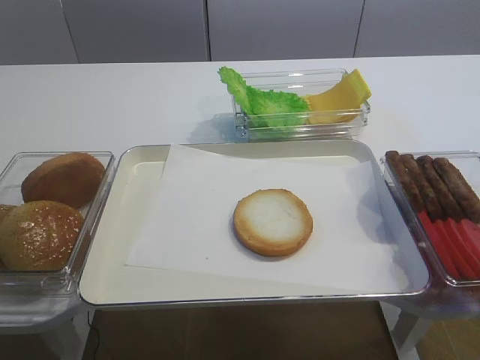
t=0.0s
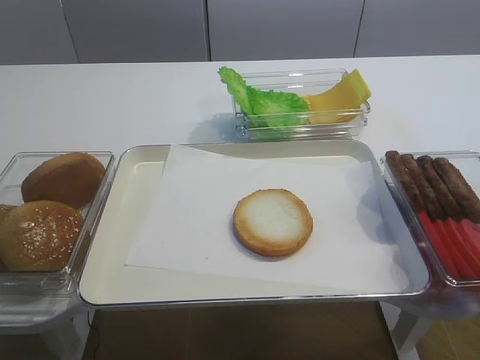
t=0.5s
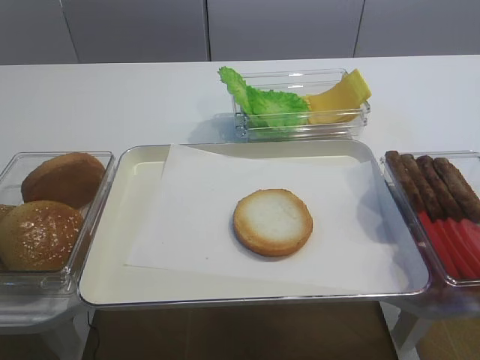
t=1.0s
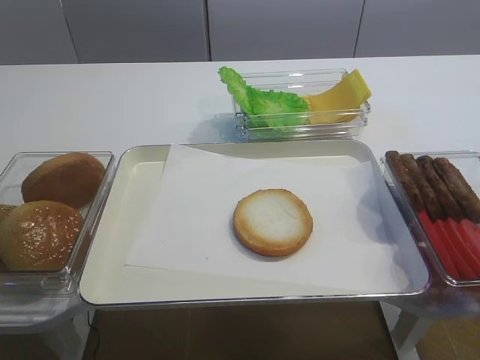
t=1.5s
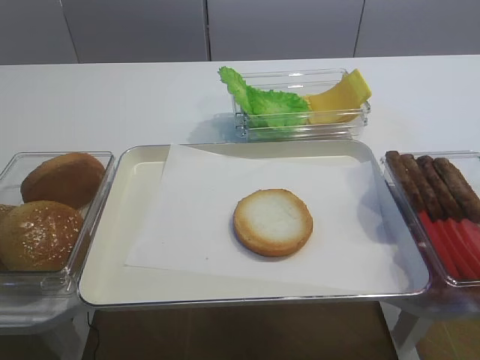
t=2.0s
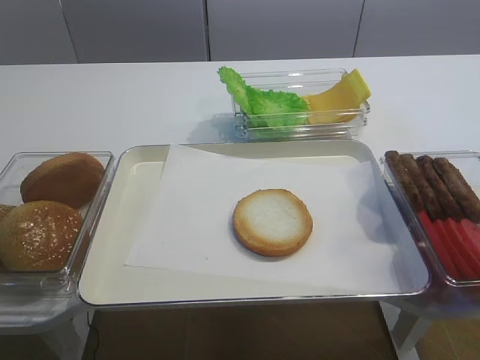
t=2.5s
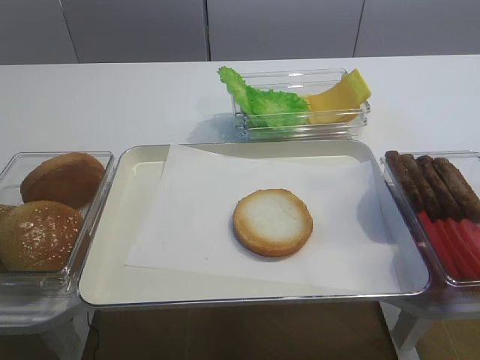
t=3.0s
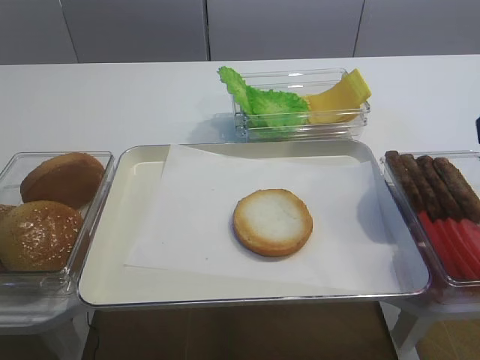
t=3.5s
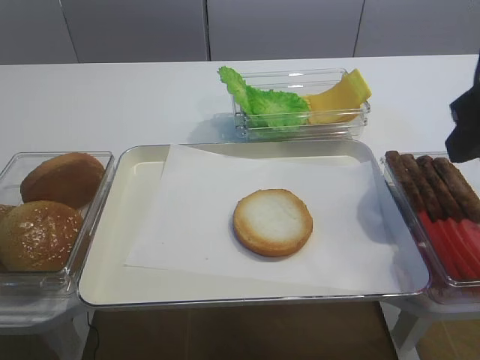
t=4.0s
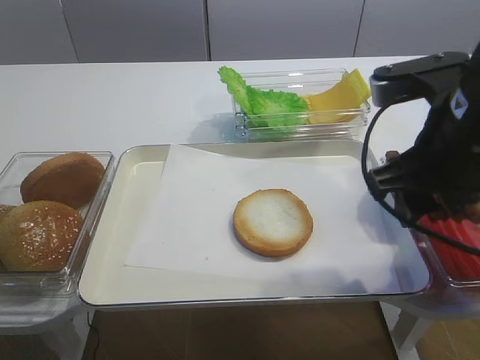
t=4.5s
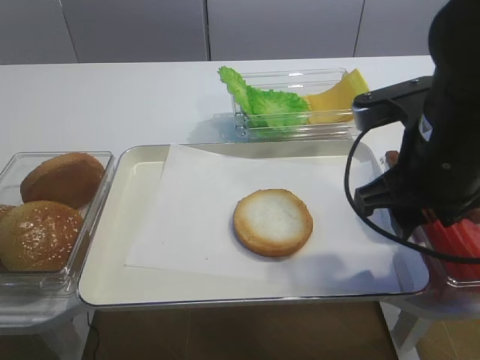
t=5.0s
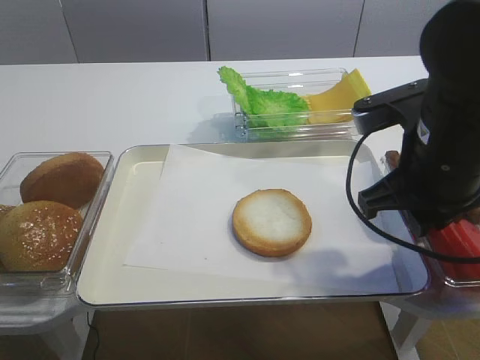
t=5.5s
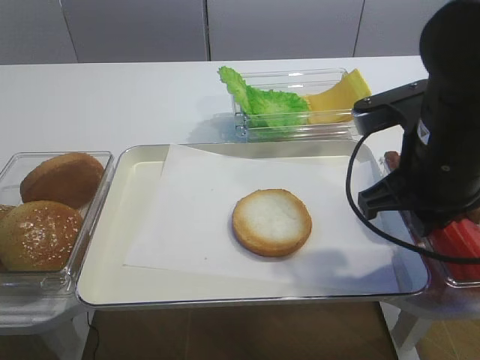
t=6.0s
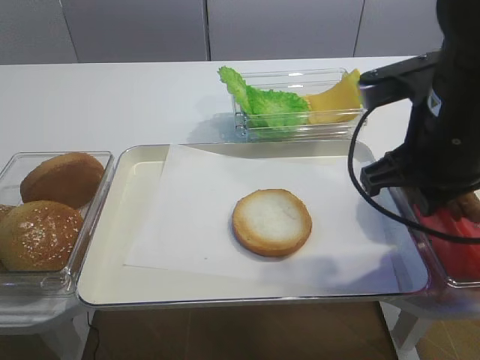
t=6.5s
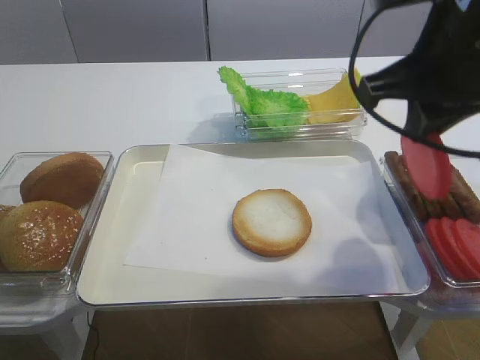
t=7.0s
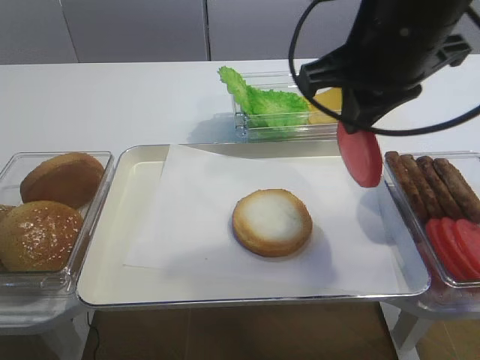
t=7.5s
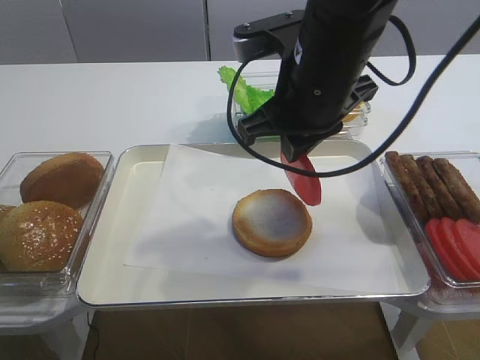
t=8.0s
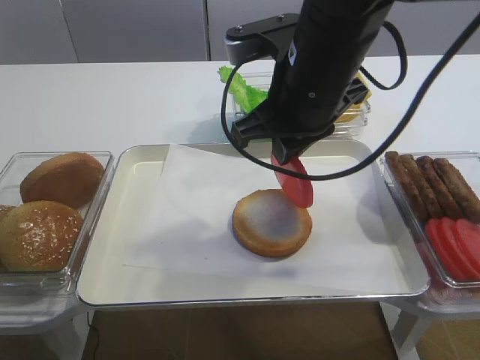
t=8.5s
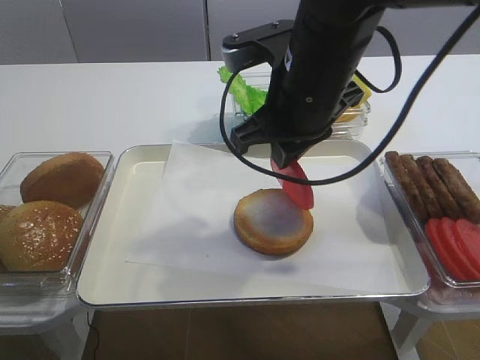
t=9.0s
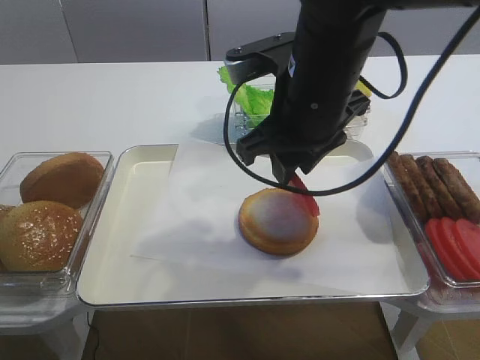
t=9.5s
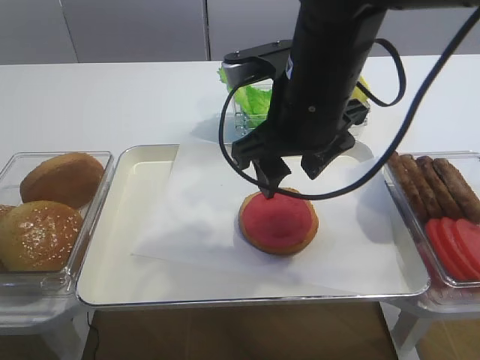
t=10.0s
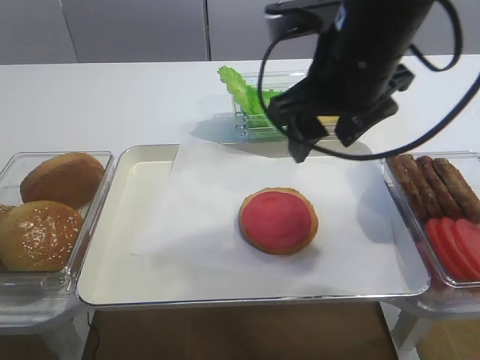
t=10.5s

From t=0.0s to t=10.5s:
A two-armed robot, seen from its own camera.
Step, from t=0.0s to t=6.5s: Pick up the tomato slice with the right gripper.
Step, from t=7.0s to t=10.0s: Place the tomato slice on the bread slice with the right gripper.
From t=2.0s to t=4.0s: The right gripper is displaced forward by some 20 cm.
From t=4.0s to t=6.5s: The right gripper is displaced downward and to the left by about 10 cm, and closes up.
From t=6.5s to t=8.5s: The right gripper shifts approximately 10 cm to the left and forward.
From t=8.5s to t=10.5s: The right gripper opens up.

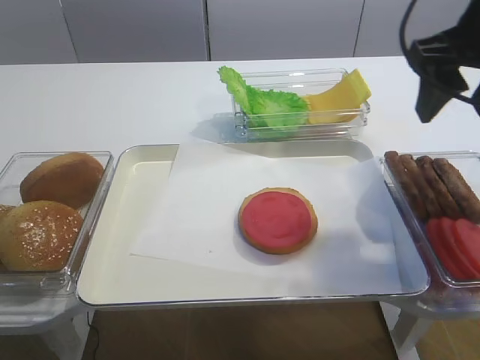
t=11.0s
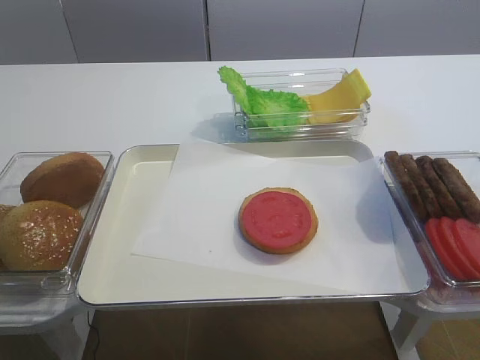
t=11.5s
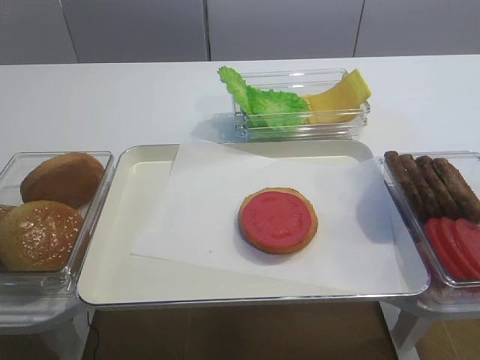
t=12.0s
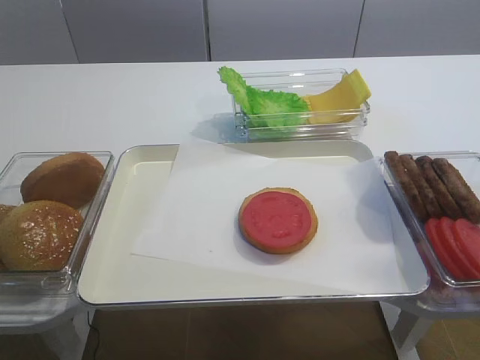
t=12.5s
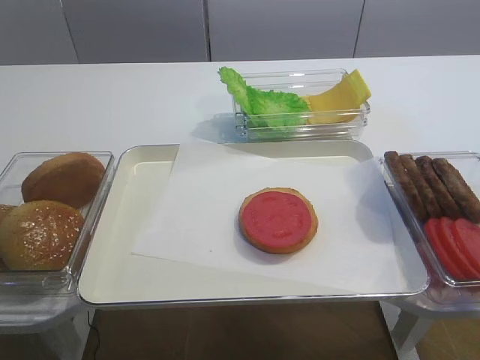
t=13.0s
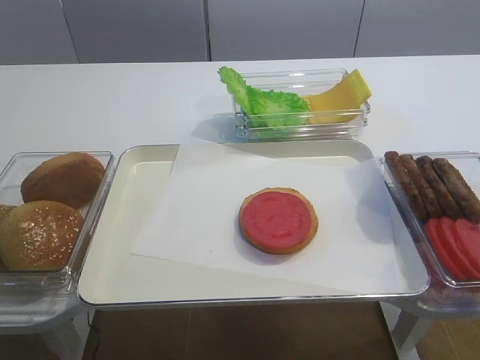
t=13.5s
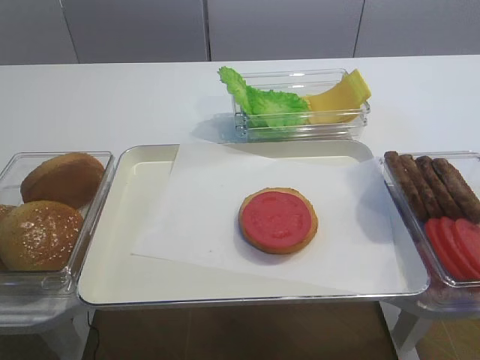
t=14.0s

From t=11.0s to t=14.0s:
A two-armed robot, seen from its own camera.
From t=11.0s to t=12.5s: The right gripper goes approximately 30 cm backward.

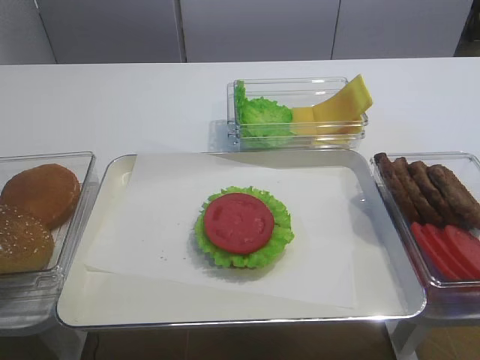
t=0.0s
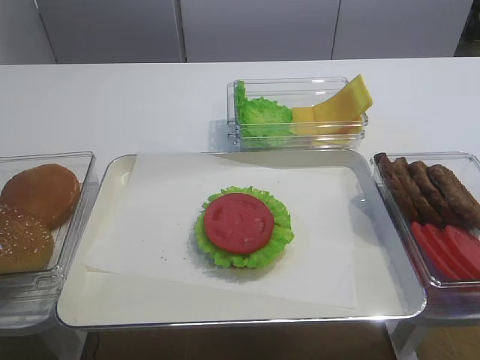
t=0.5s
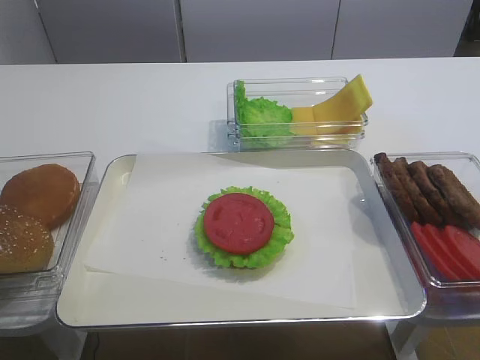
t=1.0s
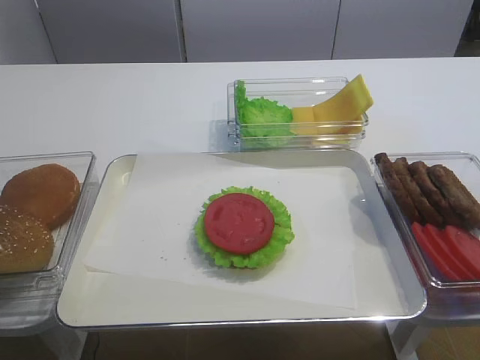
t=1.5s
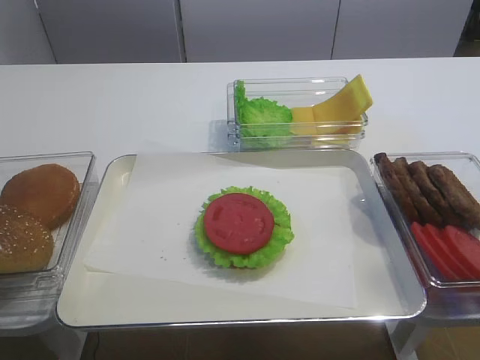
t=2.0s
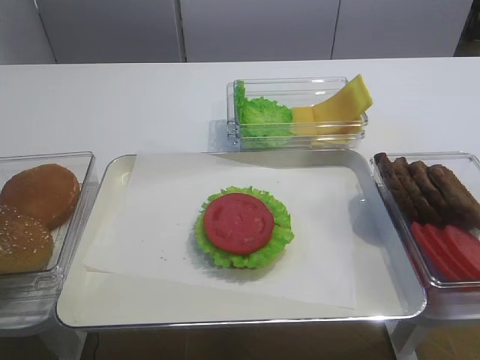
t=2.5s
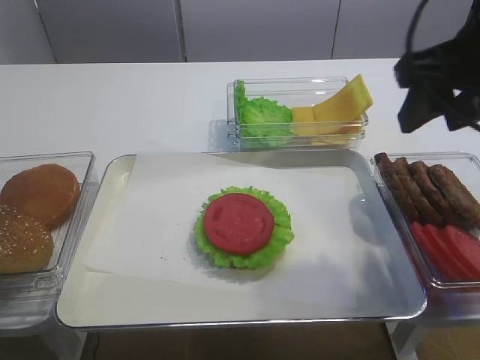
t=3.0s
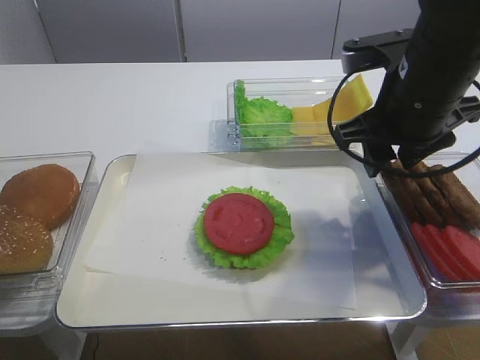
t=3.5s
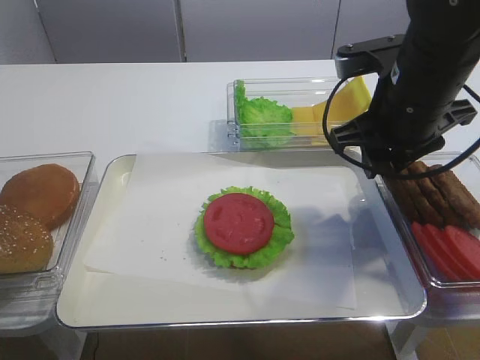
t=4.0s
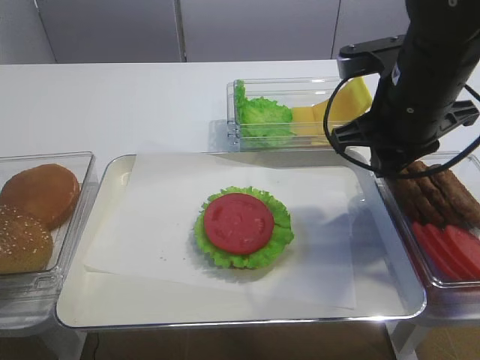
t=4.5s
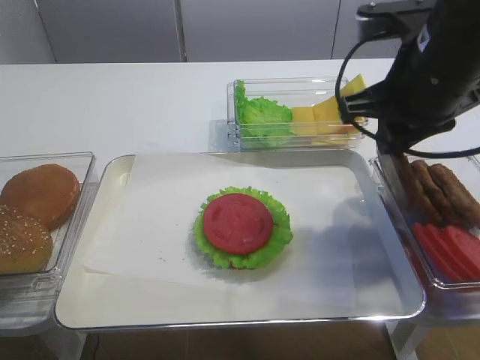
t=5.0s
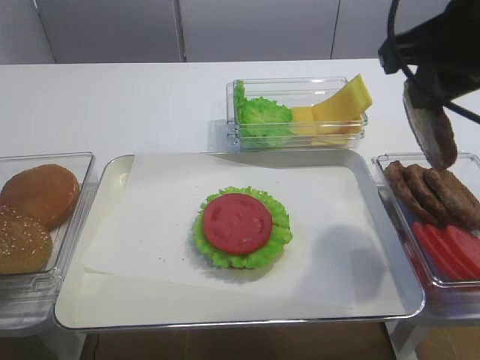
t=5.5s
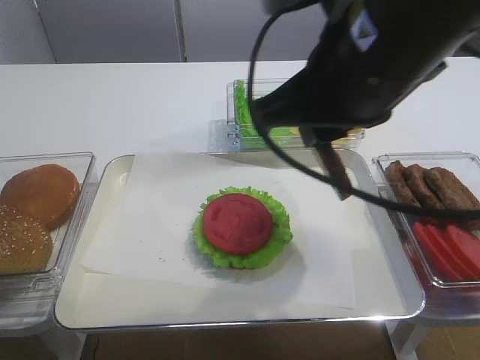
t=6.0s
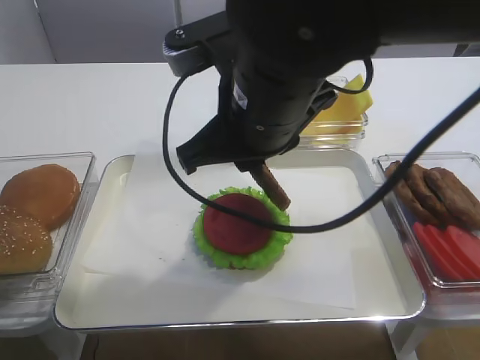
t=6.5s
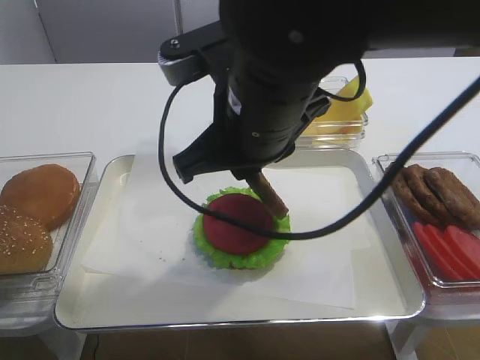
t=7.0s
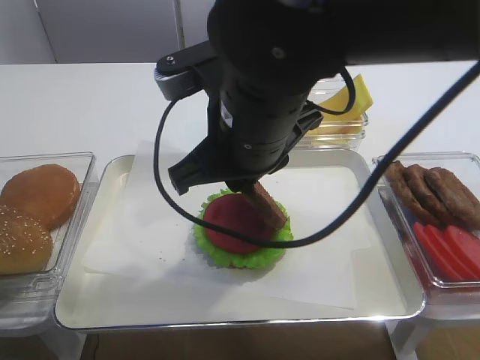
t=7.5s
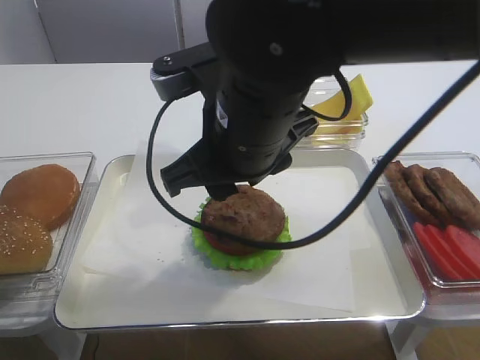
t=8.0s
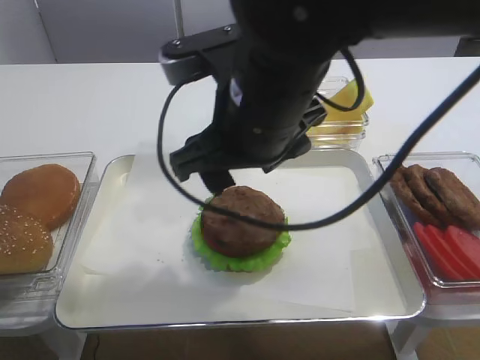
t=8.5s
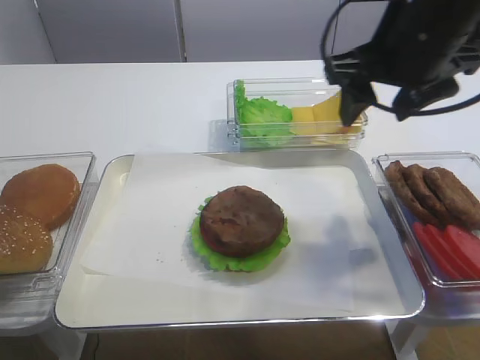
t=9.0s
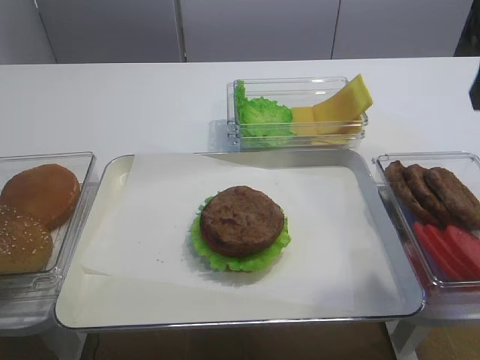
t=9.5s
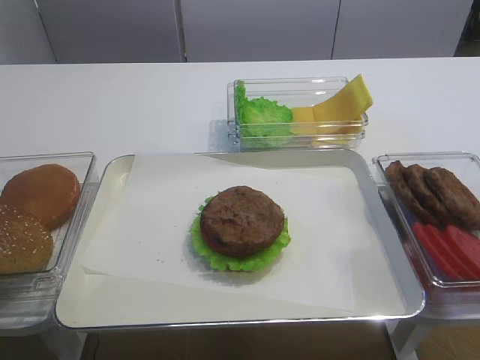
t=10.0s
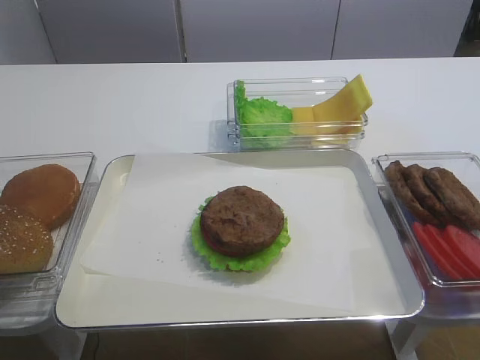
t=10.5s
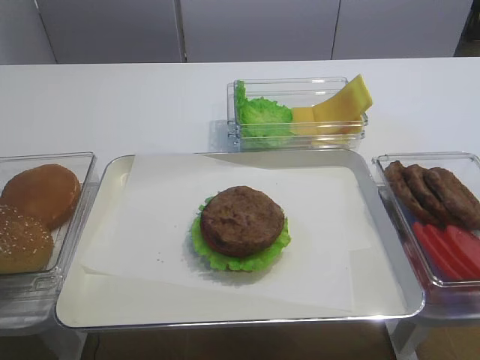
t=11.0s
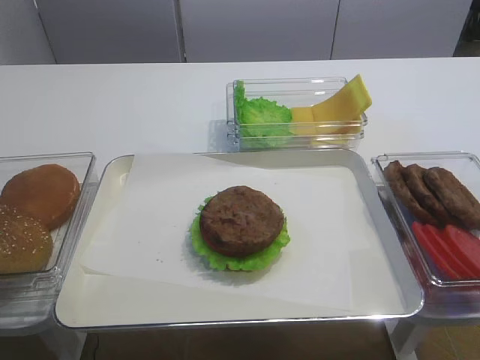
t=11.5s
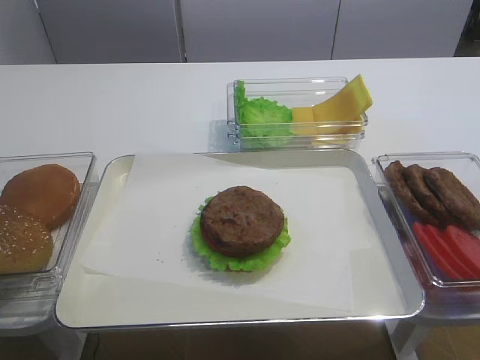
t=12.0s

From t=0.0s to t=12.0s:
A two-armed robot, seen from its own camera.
Step, from t=0.0s to t=5.0s: Pick up the cutlet with the right gripper.
Step, from t=5.5s to t=8.0s: Place the cutlet on the tomato slice with the right gripper.
From t=2.0s to t=4.0s: The right gripper heads forward and to the left, covering approximately 30 cm, and closes up.
From t=4.0s to t=6.0s: The right gripper shifts roughly 15 cm backward, upward and to the left, and closes.
From t=6.0s to t=8.0s: The right gripper moves to the left and downward, approximately 10 cm, and opens its fingers.
From t=8.0s to t=10.0s: The right gripper heads to the right and backward, covering approximately 30 cm, and opens its fingers.
